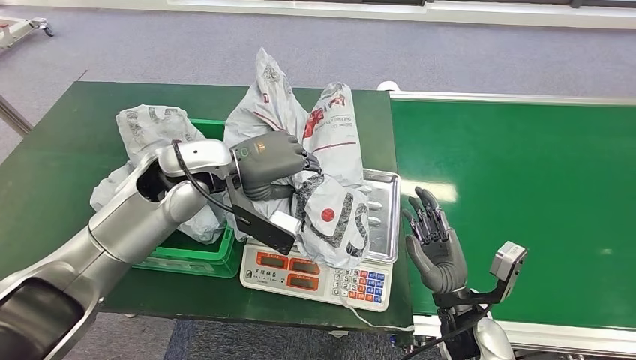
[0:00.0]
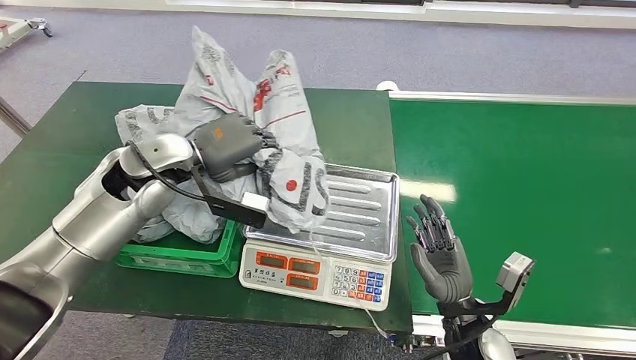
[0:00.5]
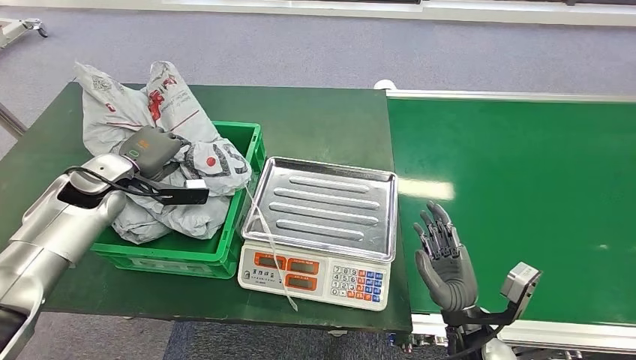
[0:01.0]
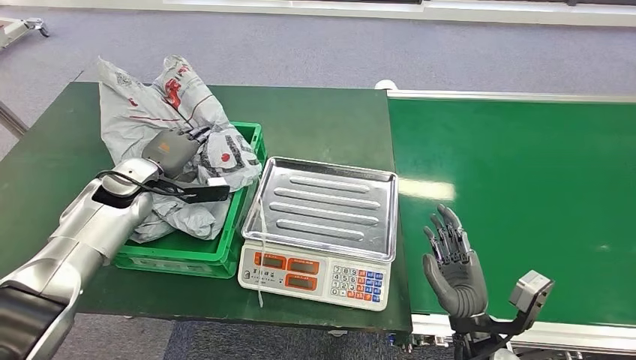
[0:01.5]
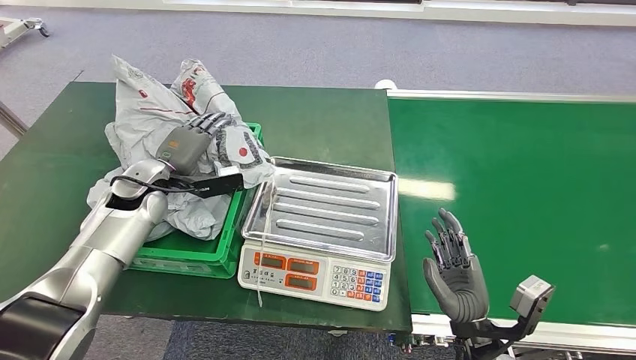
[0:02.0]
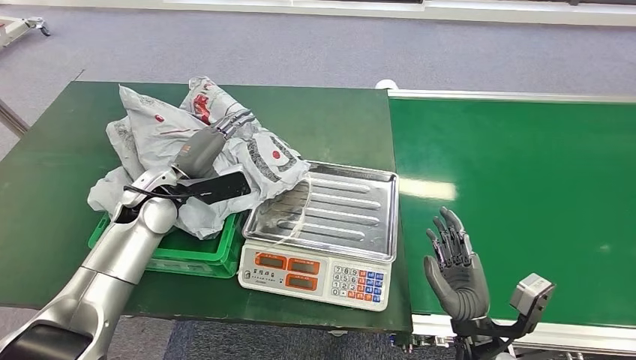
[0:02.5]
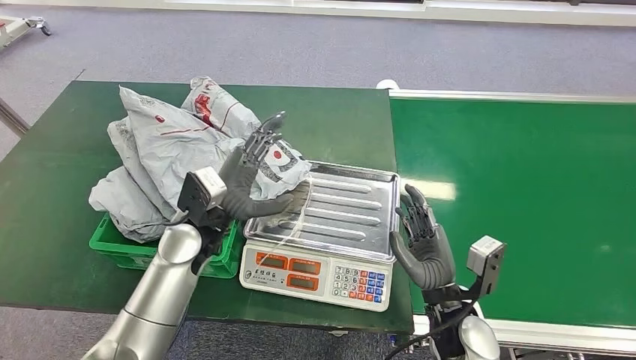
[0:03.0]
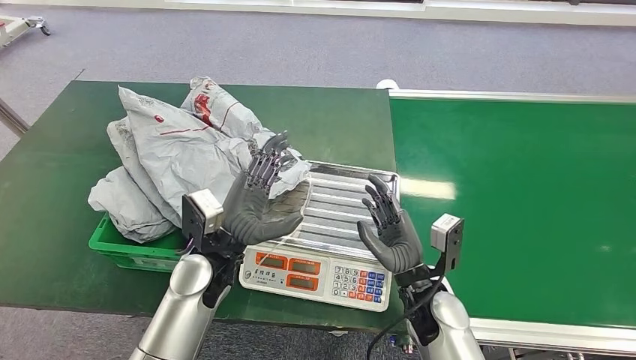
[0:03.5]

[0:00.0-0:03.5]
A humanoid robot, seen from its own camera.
Step, 0:00.5 to 0:03.5: Place the package into the parcel locker.
